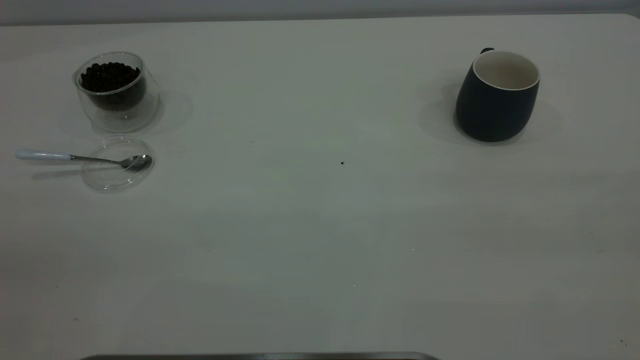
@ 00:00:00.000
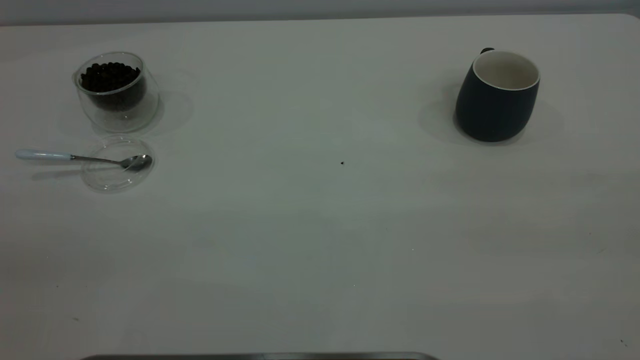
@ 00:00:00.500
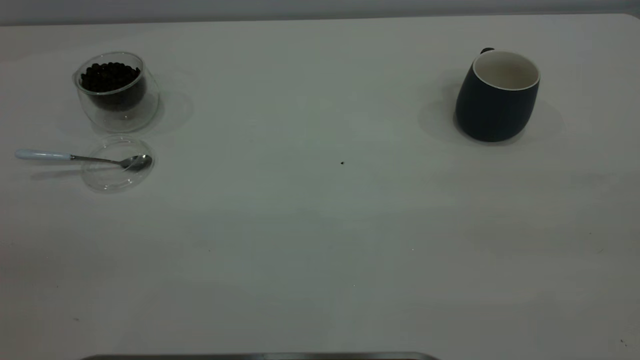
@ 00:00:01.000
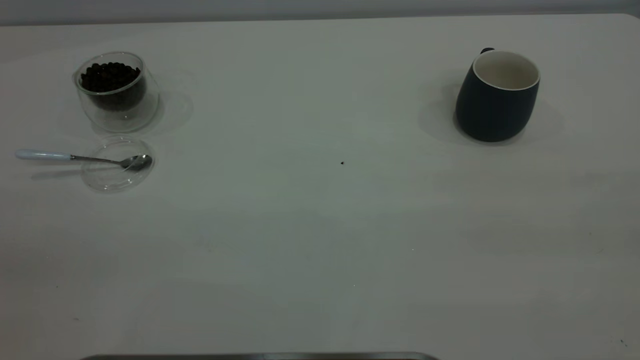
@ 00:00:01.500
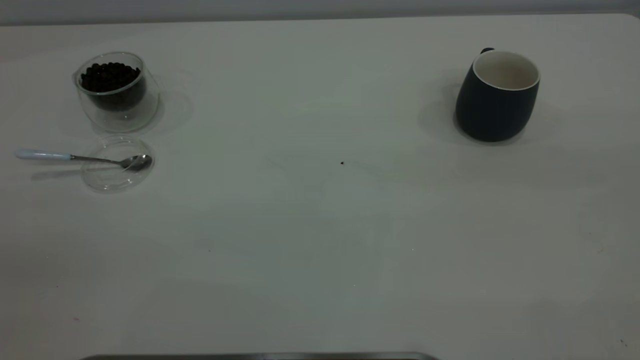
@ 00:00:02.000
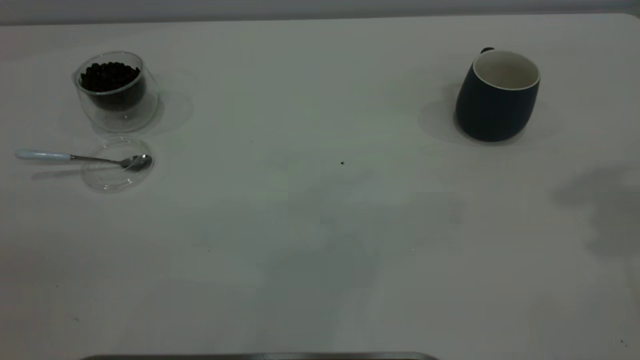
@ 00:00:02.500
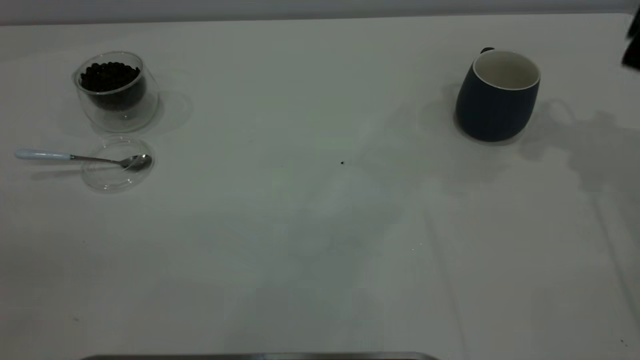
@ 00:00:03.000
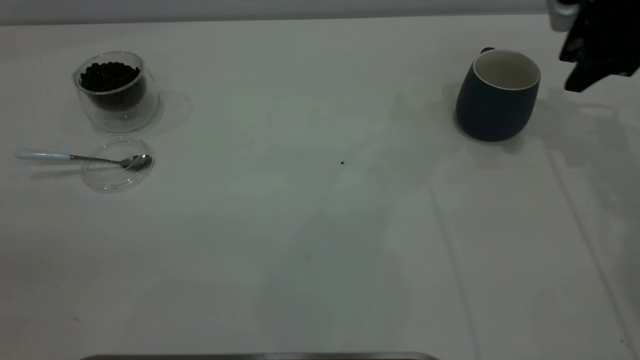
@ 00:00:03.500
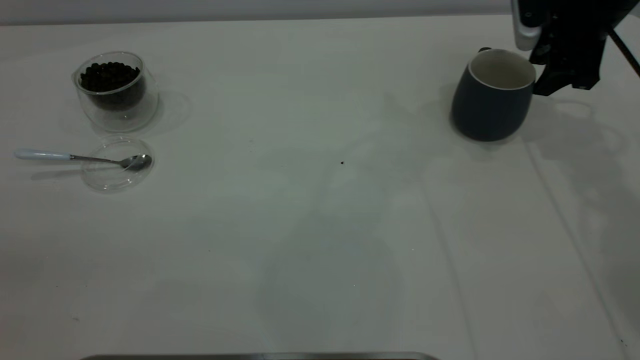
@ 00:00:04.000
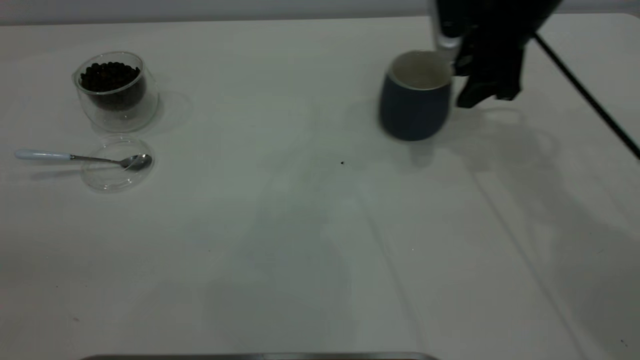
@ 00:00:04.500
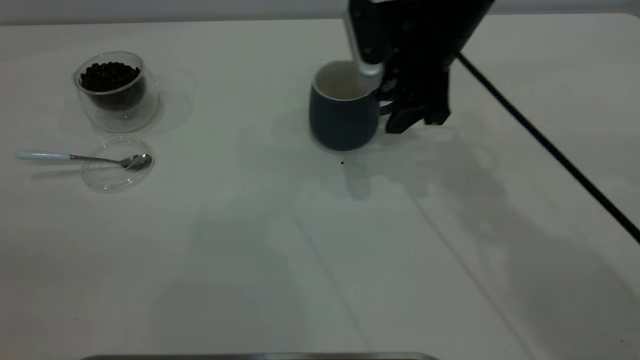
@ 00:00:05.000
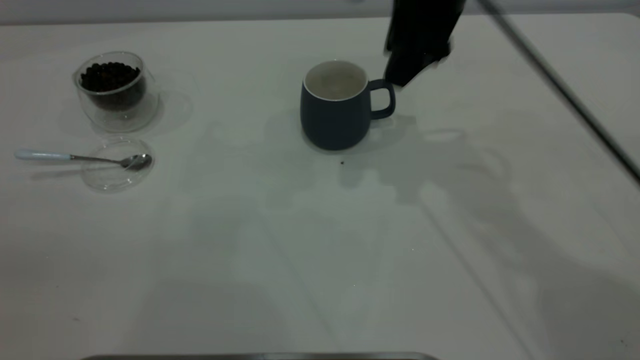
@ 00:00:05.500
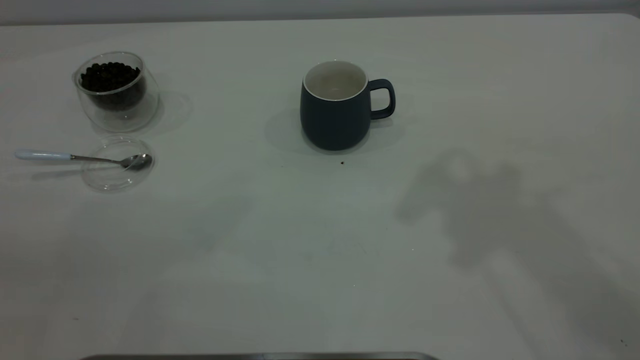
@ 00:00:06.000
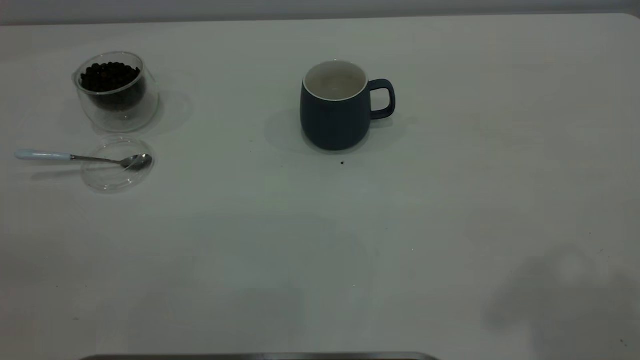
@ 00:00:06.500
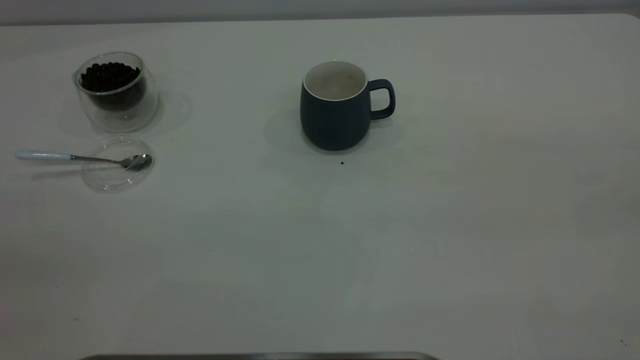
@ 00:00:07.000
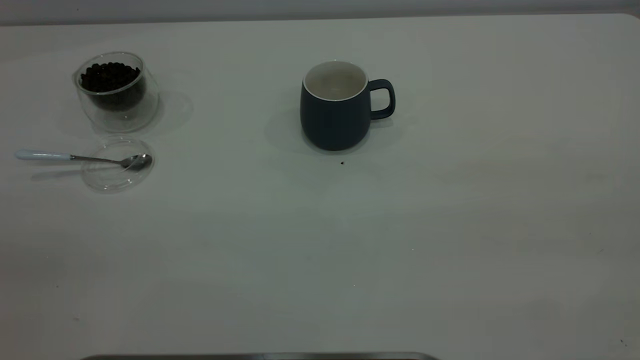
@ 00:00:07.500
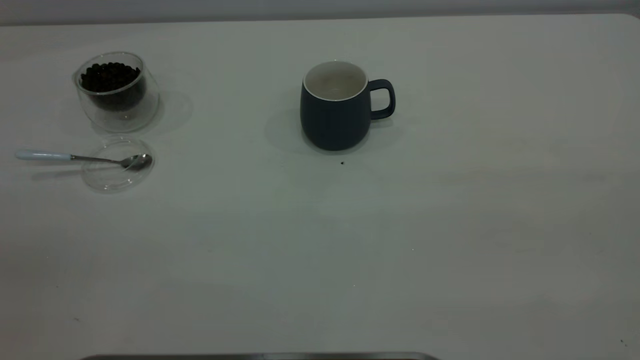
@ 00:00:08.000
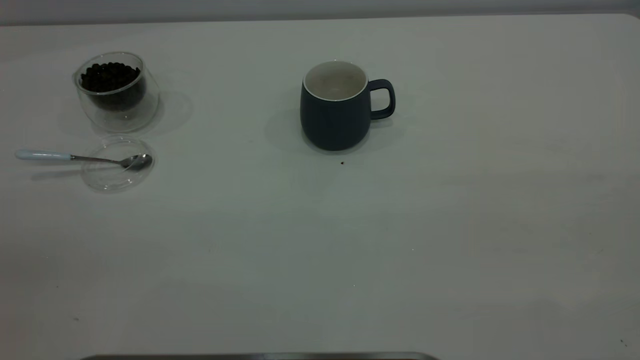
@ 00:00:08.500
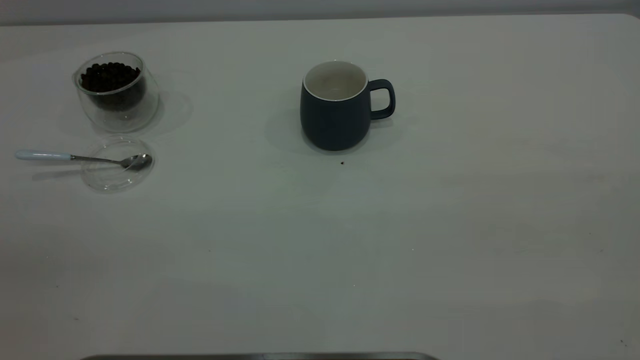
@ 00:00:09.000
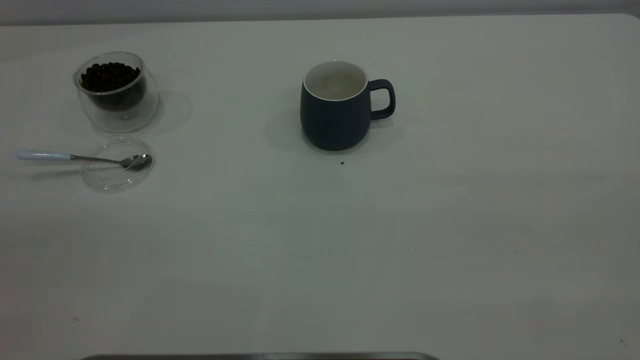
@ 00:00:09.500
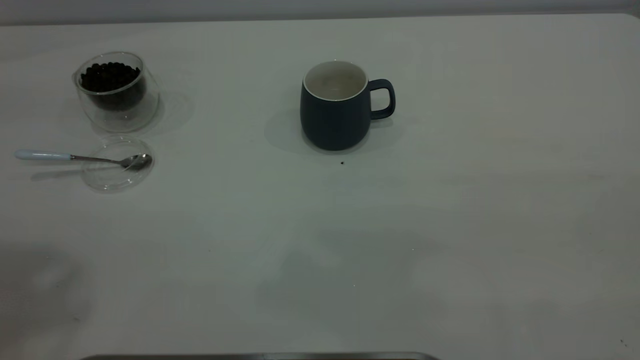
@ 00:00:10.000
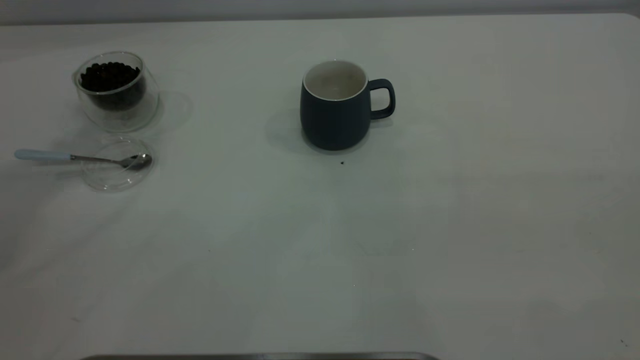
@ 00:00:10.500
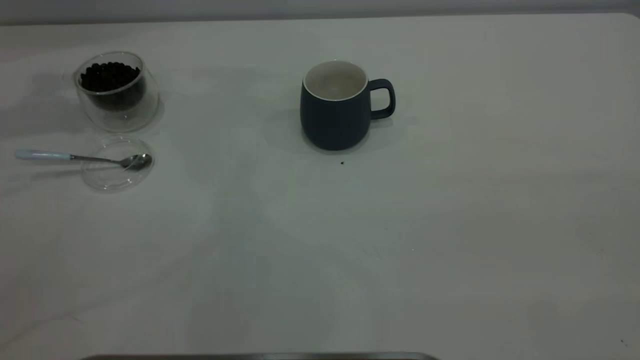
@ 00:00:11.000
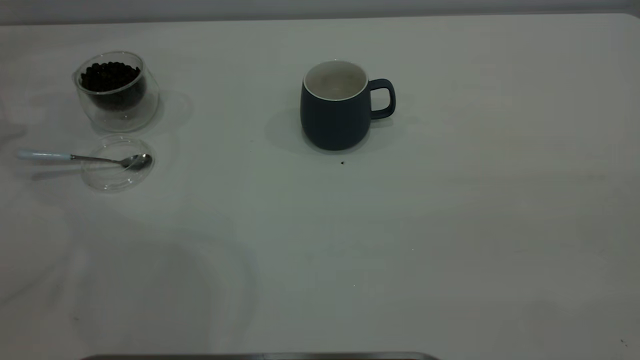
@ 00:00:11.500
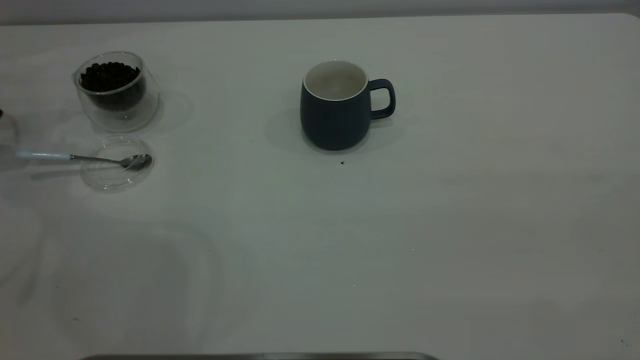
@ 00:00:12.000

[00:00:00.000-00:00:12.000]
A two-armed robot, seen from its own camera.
Task of the whole recording: the right gripper place the grey cup in the center of the table, the left gripper take the blue spoon from the cup lid and scoop out the coffee beans from the coffee cup and put them into the grey cup, the left gripper put the spoon back into the cup lid.
Step, 00:00:00.000 to 00:00:05.500: Move the cup to the center of view.
00:00:02.000 to 00:00:04.000: The right gripper is displaced forward and downward by some 50 cm.
00:00:04.000 to 00:00:06.000: The right gripper travels upward and backward by about 35 cm.

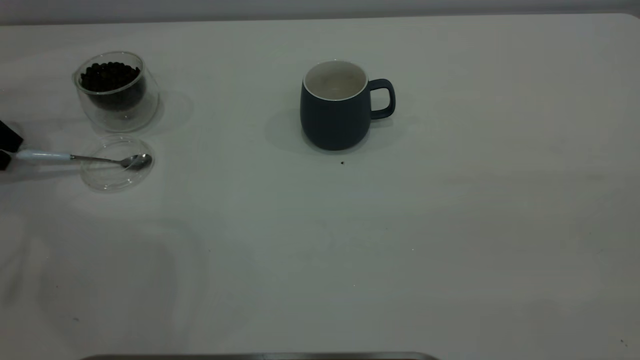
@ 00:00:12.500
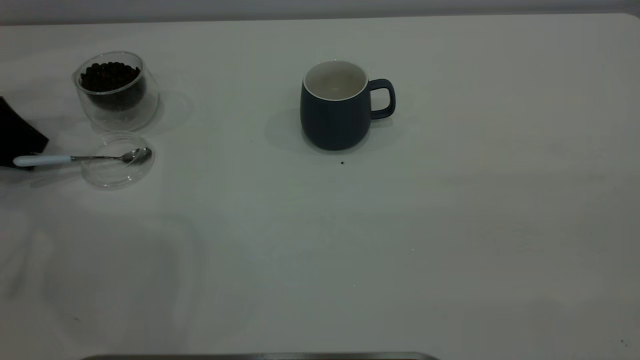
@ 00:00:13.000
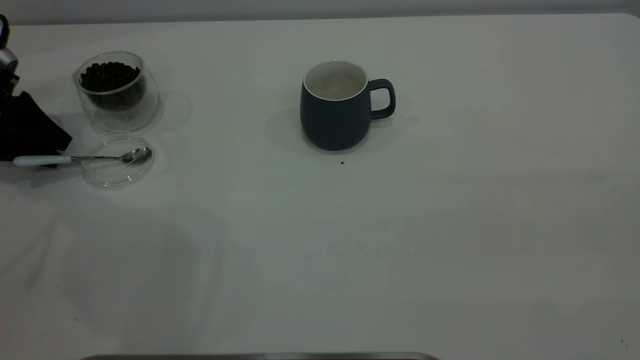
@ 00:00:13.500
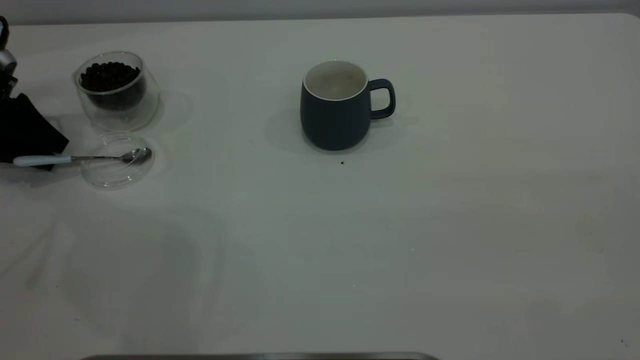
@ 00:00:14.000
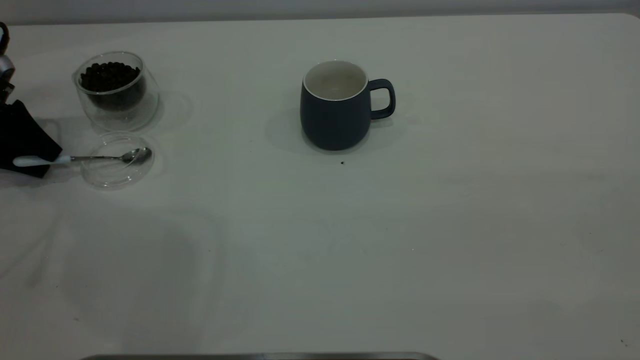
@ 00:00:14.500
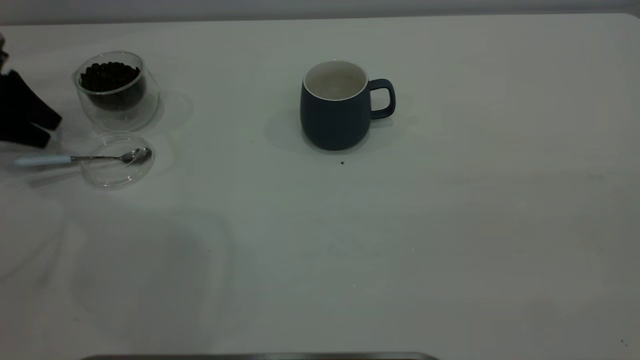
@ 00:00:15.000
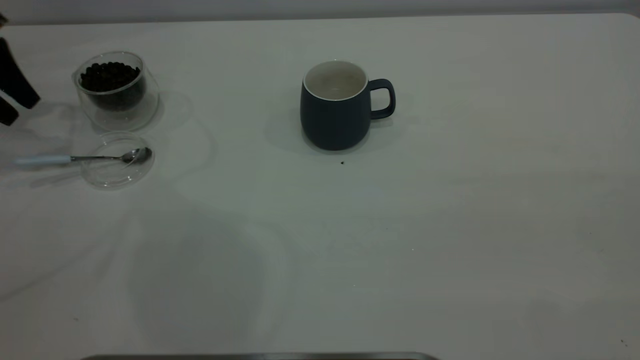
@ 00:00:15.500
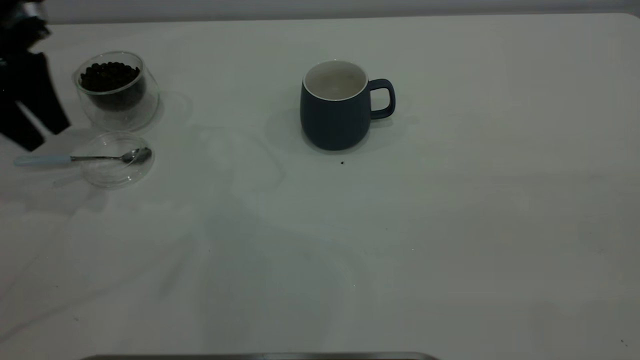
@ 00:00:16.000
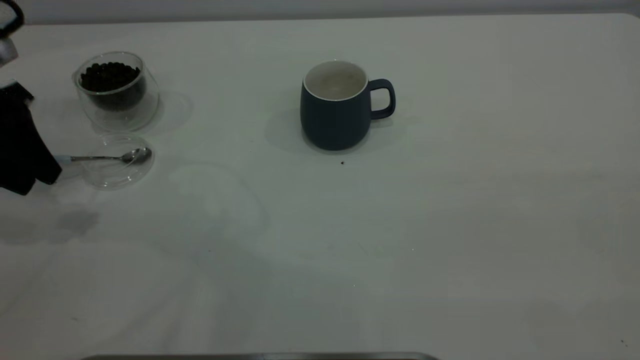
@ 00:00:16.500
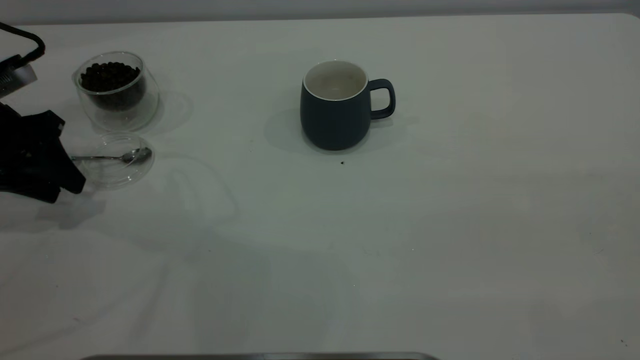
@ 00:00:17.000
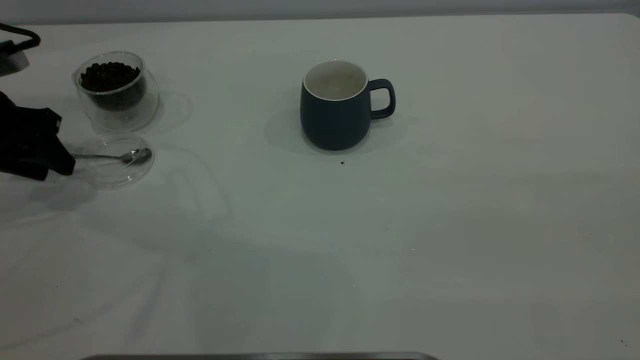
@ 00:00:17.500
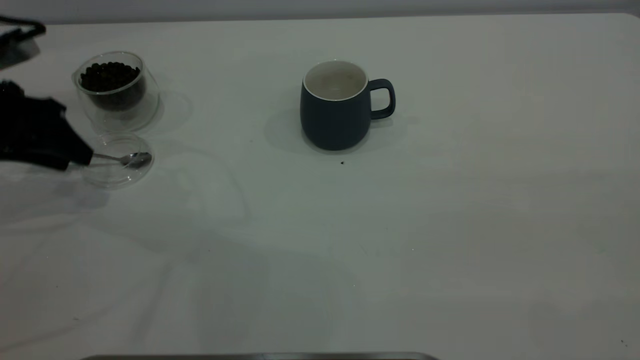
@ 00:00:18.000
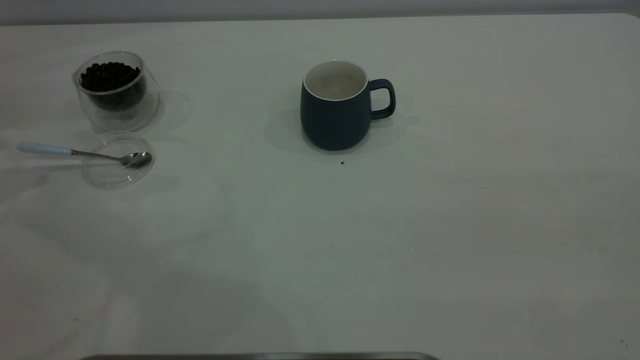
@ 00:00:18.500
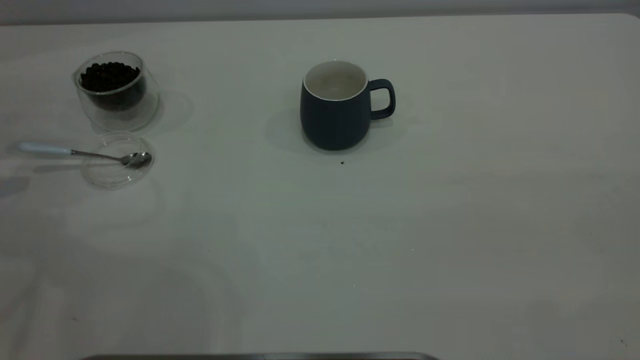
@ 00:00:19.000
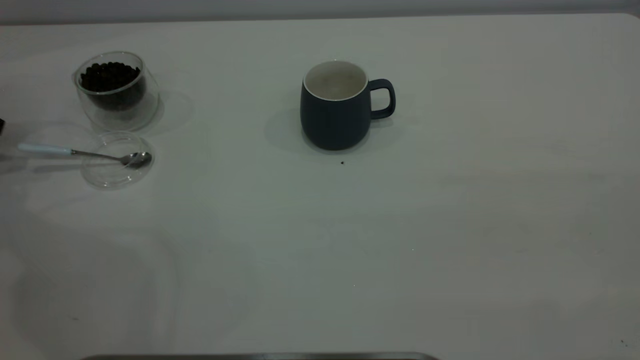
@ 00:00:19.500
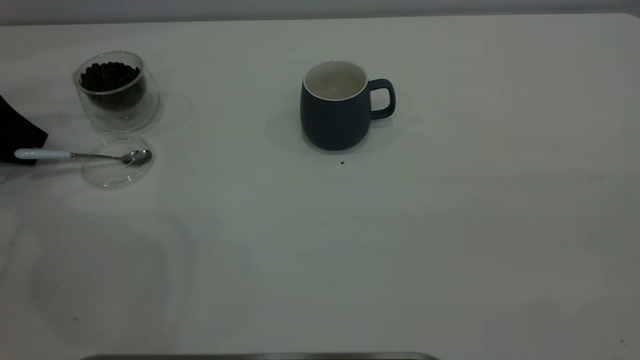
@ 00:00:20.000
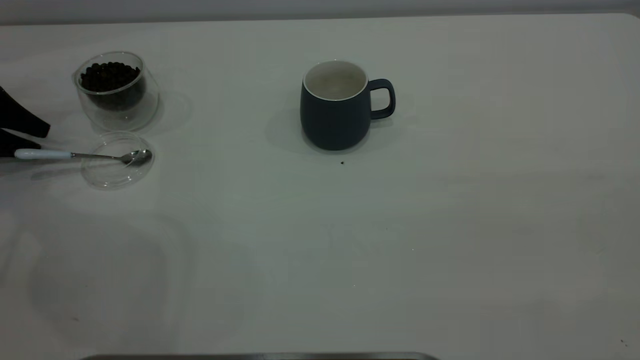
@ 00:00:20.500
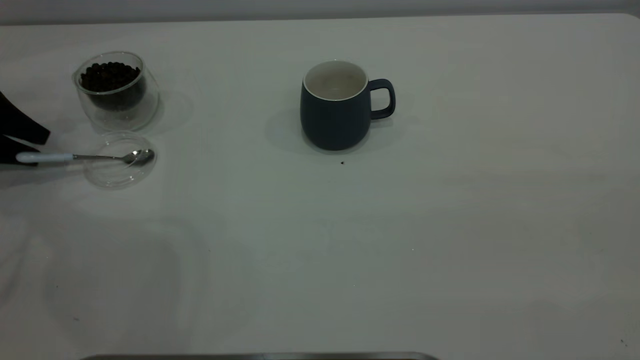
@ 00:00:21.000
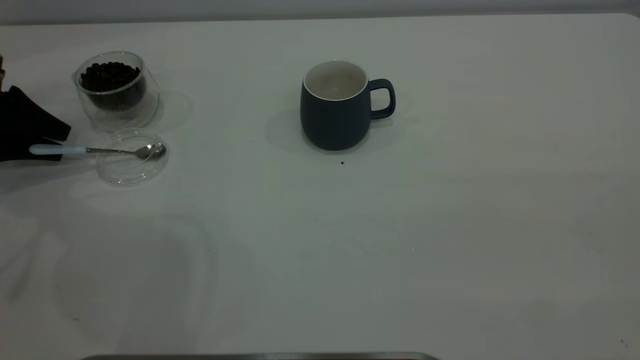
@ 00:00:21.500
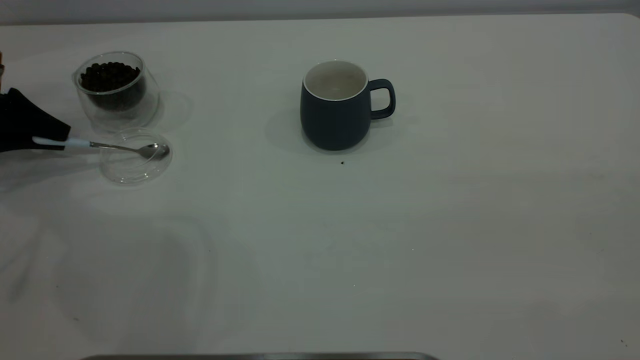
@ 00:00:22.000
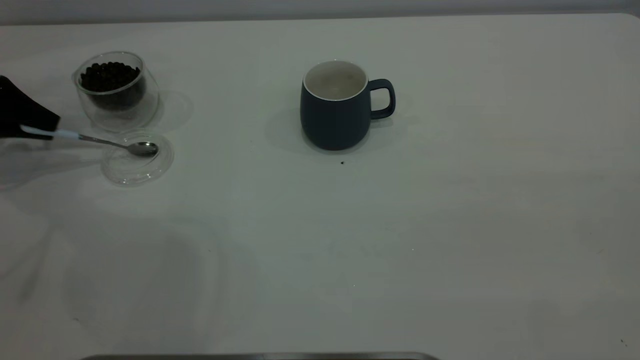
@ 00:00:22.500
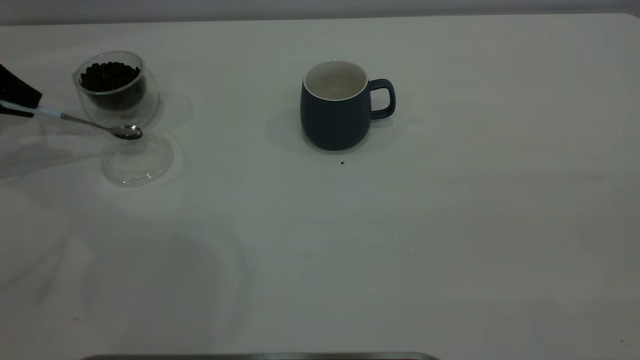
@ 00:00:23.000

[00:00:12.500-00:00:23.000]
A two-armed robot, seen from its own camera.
Task of the whole recording: the right gripper place the grey cup in the center of the table, the left gripper take the blue spoon from the cup lid and scoop out the coffee beans from the coffee cup and put them into the grey cup, the left gripper put the spoon back into the cup lid.
00:00:12.500 to 00:00:14.500: The grippers stay close to where they were, moving slightly.
00:00:14.500 to 00:00:16.500: The left gripper travels backward, to the right and upward by some 15 cm.
00:00:16.500 to 00:00:19.000: The left gripper shifts some 15 cm to the left.
00:00:19.000 to 00:00:21.000: The left gripper shifts about 5 cm downward.
00:00:21.000 to 00:00:23.000: The left gripper shifts approximately 5 cm upward, and closes.
